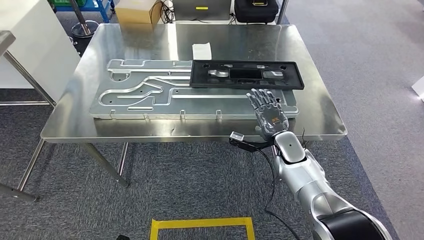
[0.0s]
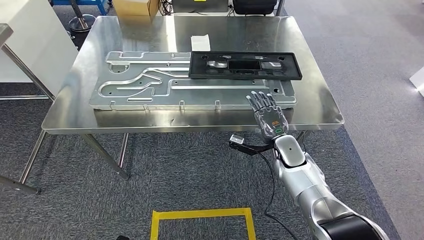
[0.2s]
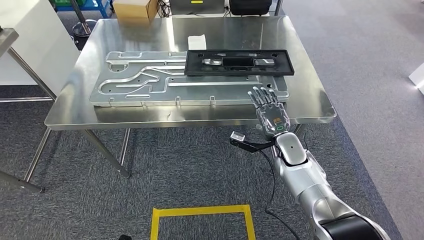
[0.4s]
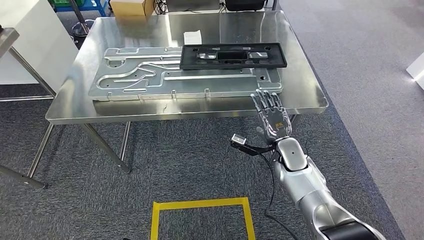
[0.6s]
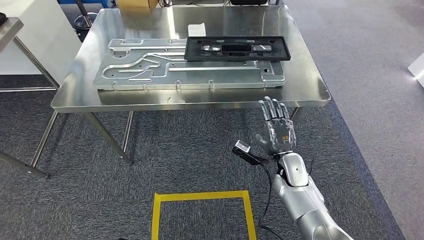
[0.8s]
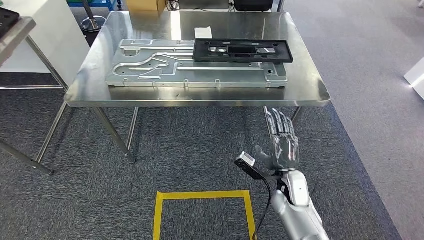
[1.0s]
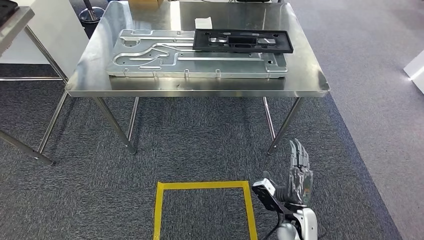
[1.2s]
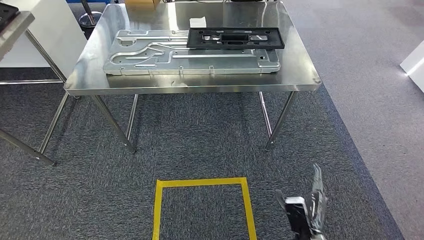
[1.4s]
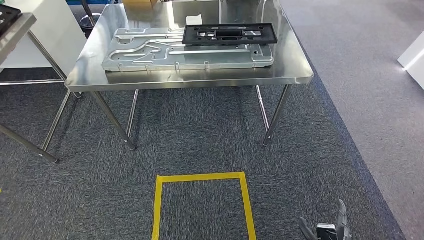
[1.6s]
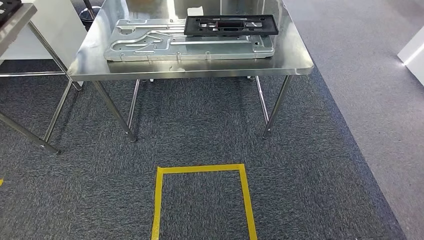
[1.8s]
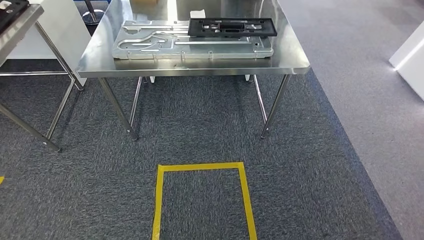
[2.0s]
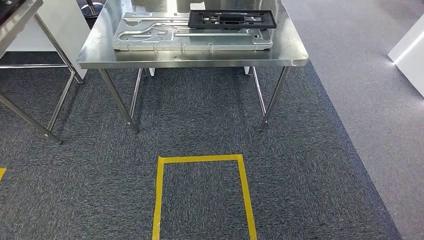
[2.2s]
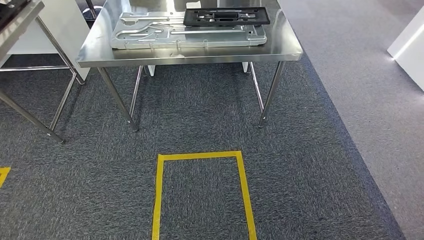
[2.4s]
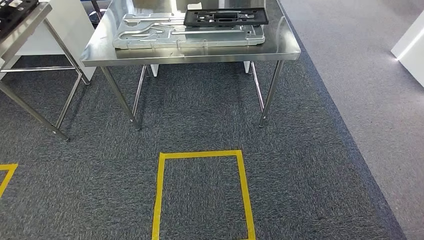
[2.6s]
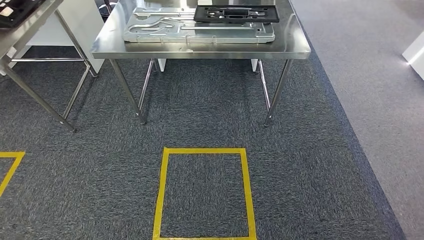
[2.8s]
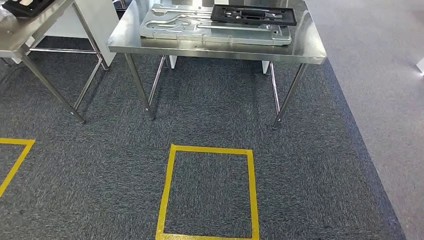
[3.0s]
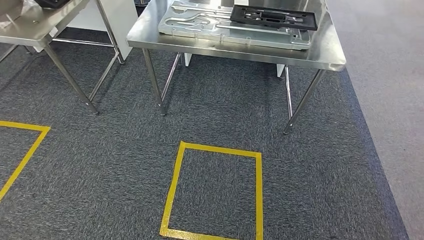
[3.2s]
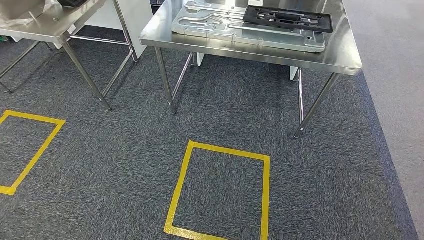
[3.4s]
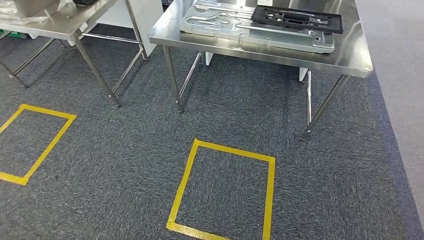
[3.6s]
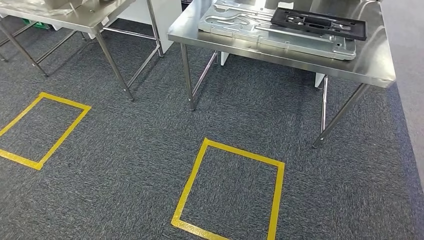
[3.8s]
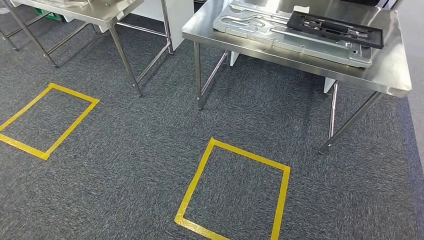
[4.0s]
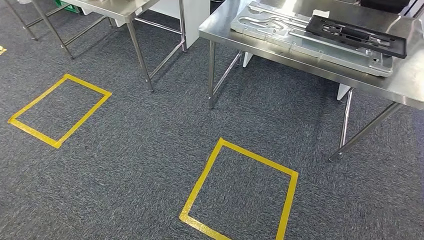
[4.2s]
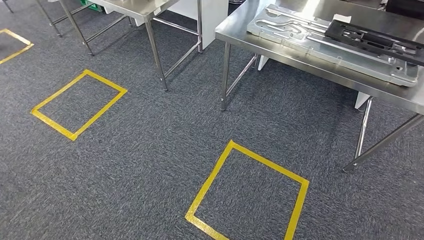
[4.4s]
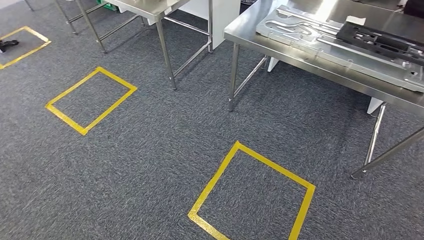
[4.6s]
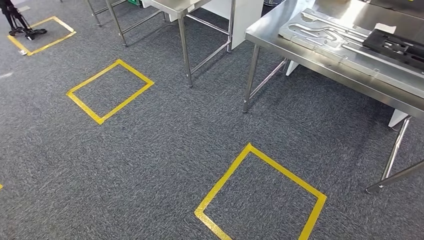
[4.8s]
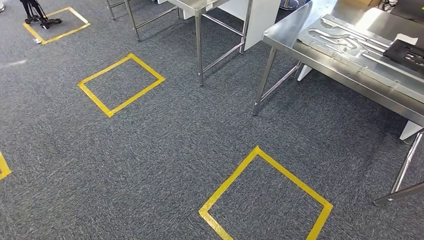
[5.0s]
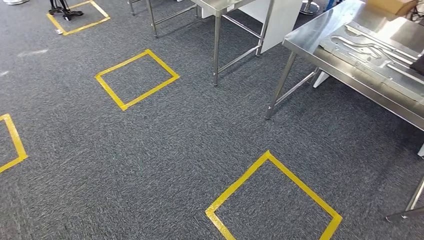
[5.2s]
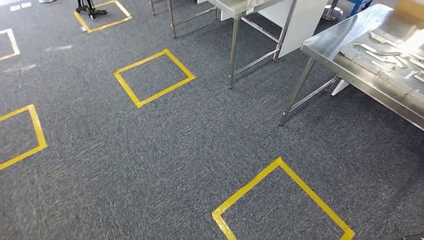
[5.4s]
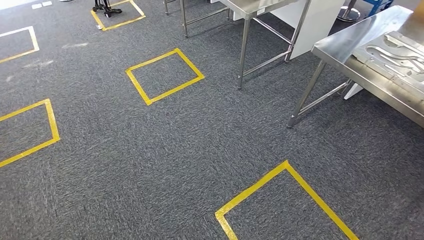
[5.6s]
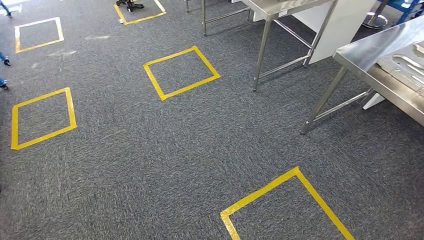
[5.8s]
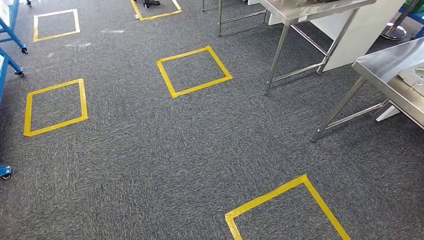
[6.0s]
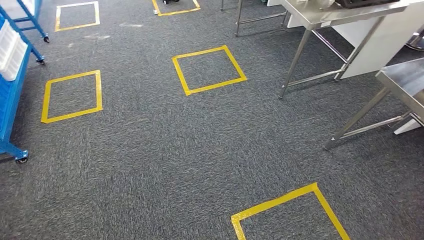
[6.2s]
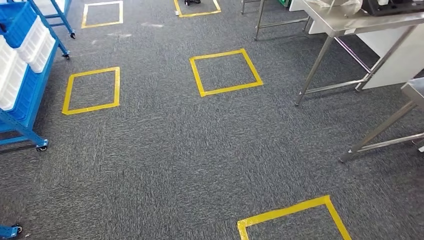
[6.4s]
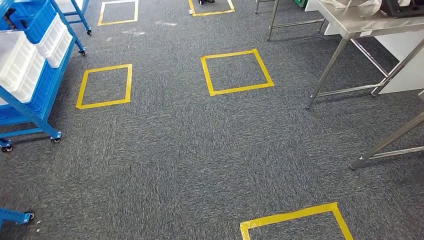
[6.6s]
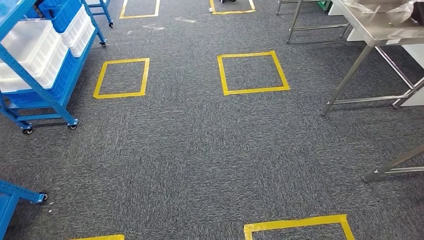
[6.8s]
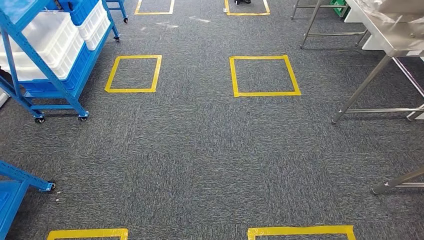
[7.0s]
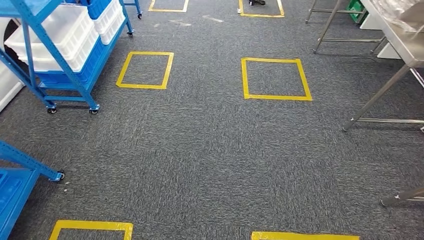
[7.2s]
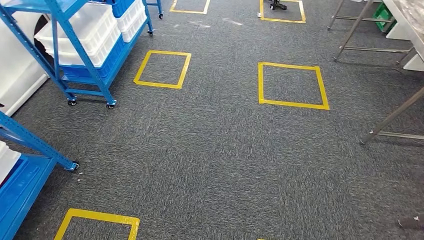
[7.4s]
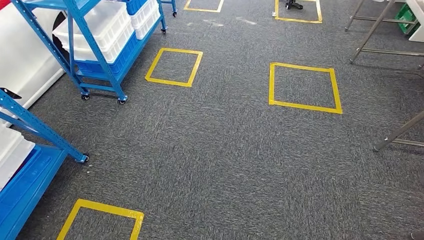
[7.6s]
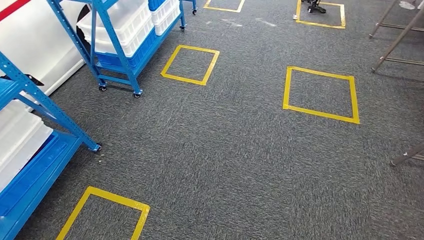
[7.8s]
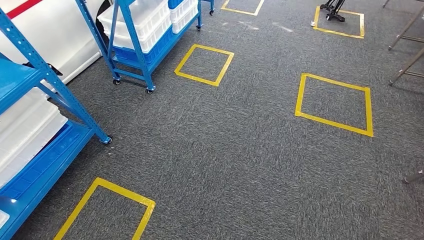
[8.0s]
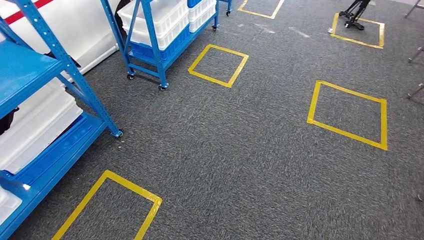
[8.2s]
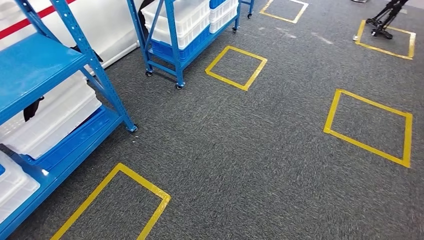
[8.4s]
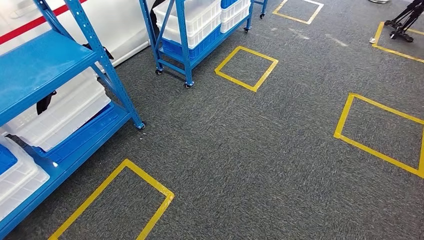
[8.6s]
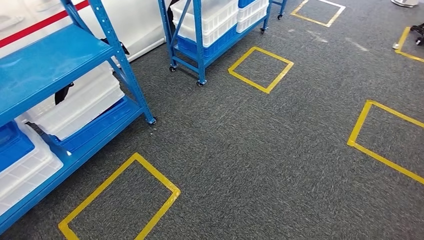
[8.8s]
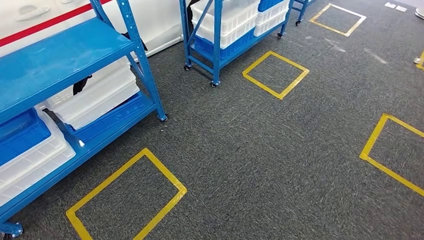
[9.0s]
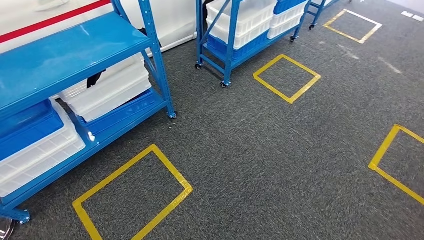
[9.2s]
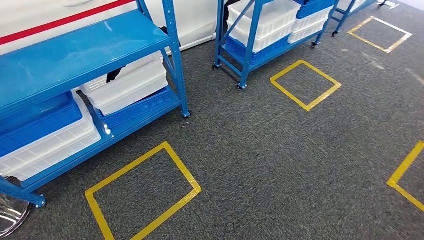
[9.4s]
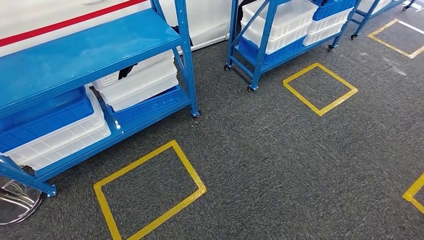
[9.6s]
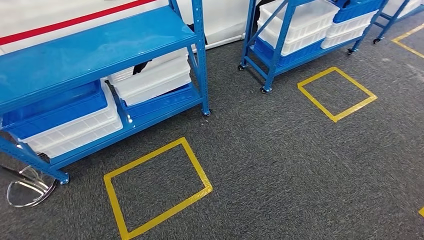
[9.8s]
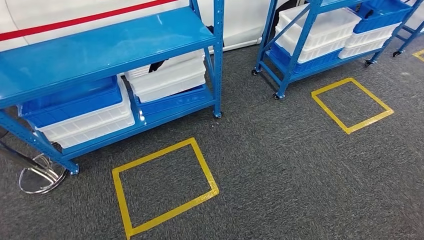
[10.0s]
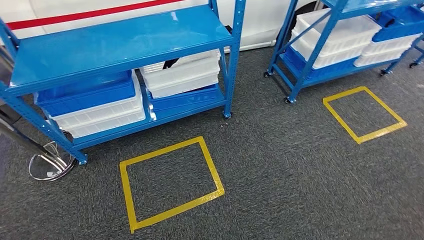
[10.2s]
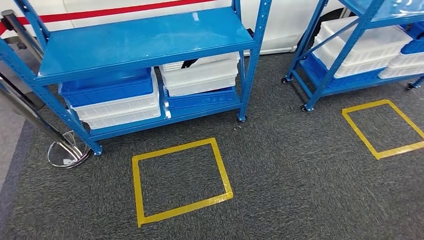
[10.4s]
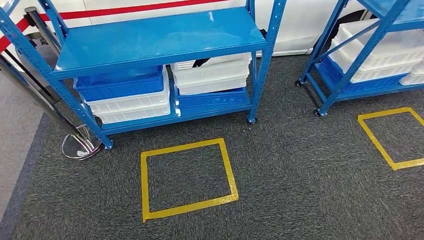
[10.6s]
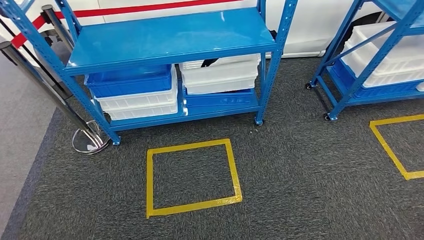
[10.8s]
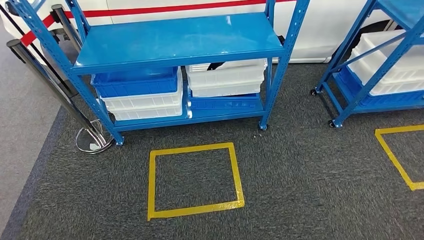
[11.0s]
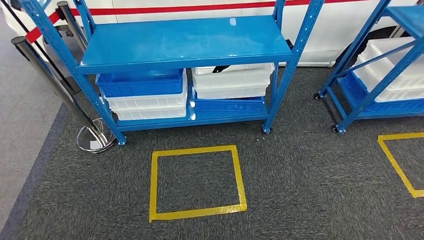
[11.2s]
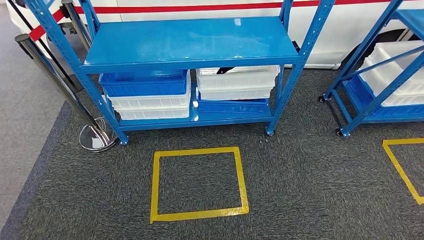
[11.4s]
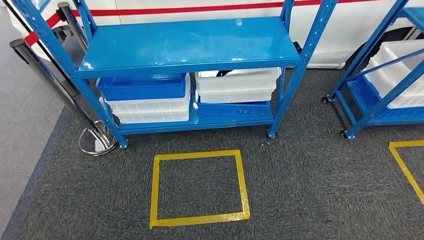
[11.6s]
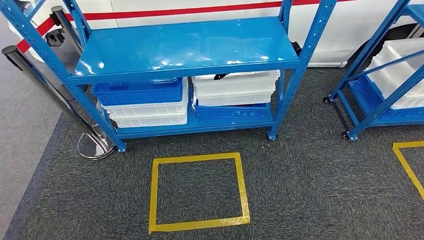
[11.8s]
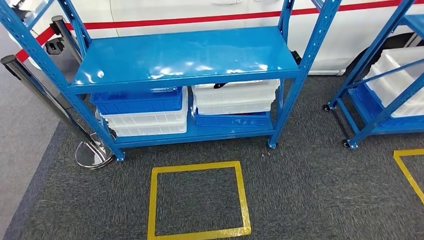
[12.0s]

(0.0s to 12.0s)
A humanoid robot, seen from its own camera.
Step, 0.0s - 2.4s: Insert the large material into the corresponding slot on the workbench.

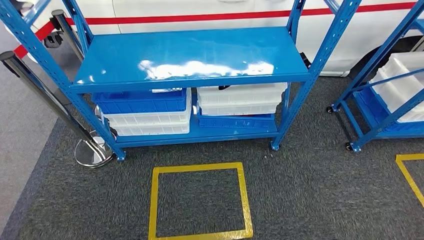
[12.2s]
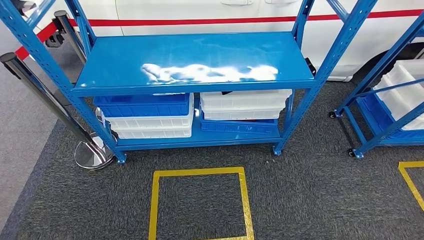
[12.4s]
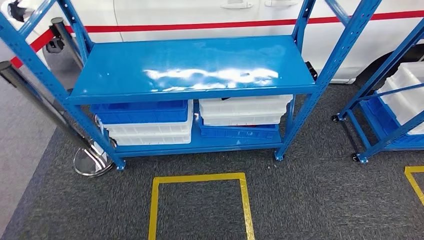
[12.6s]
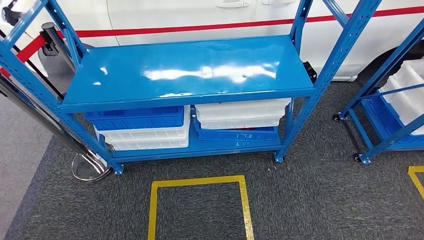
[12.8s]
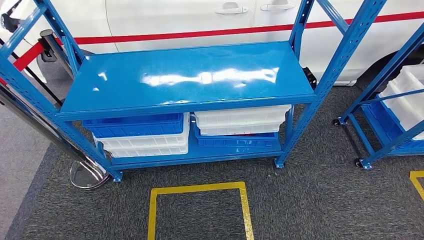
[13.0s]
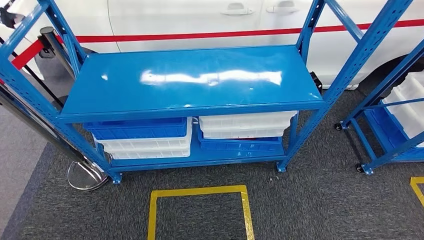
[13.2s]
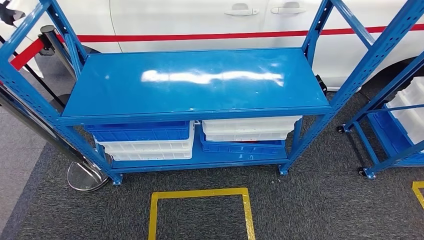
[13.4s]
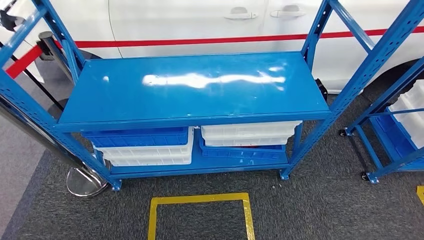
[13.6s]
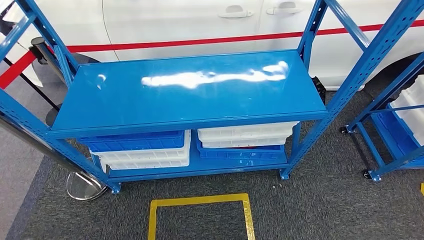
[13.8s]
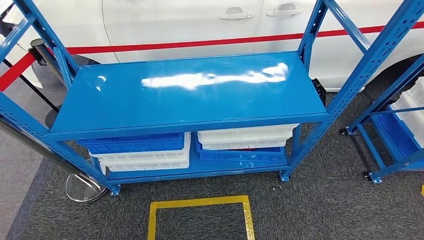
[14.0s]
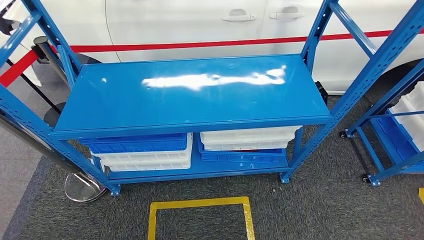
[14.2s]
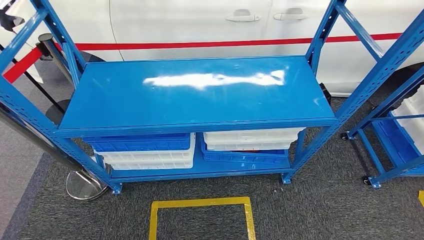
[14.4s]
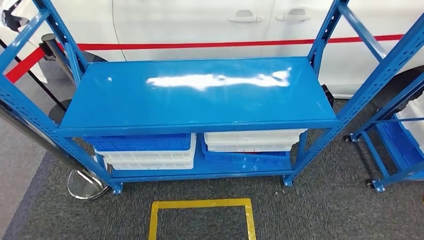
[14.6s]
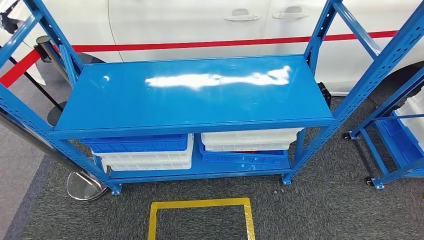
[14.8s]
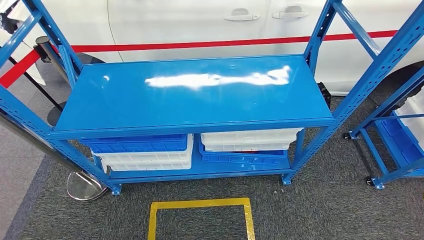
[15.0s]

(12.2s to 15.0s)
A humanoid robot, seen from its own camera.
Step, 12.2s - 15.0s: Move to the initial position of the shelf.

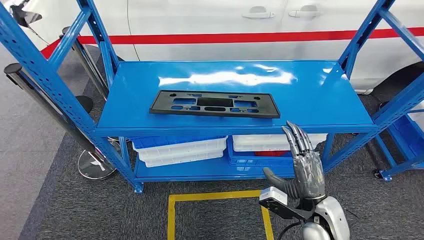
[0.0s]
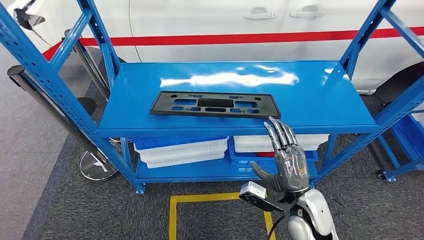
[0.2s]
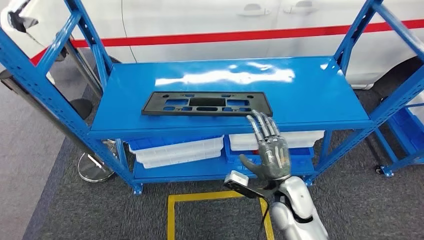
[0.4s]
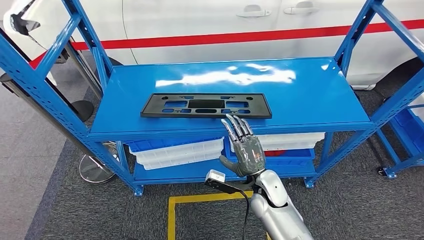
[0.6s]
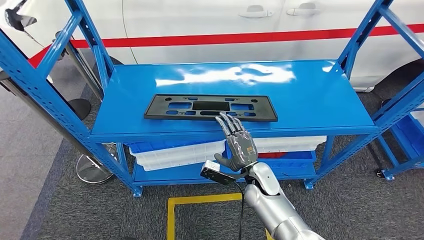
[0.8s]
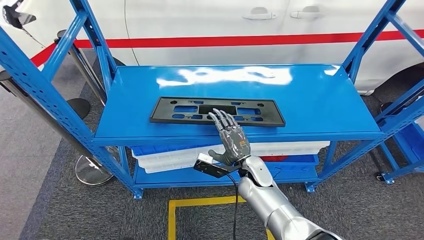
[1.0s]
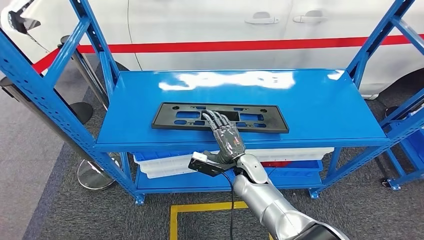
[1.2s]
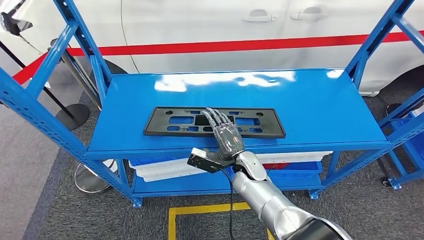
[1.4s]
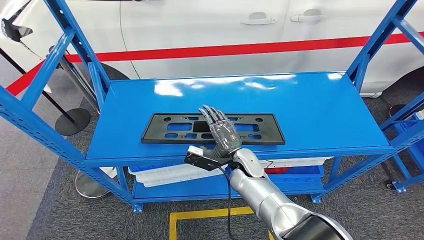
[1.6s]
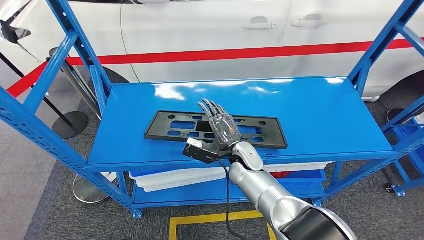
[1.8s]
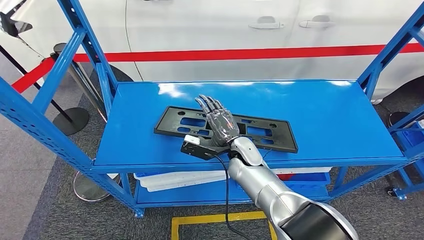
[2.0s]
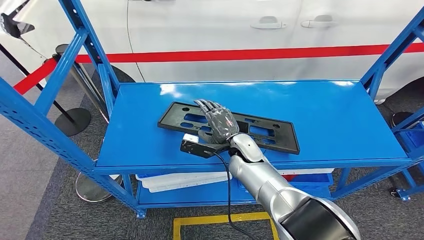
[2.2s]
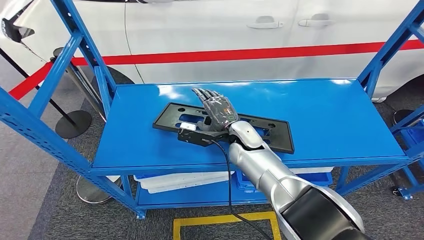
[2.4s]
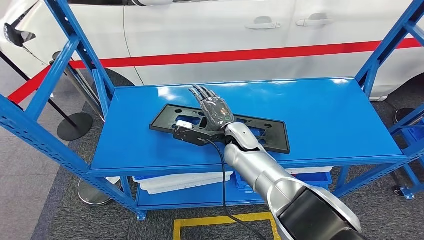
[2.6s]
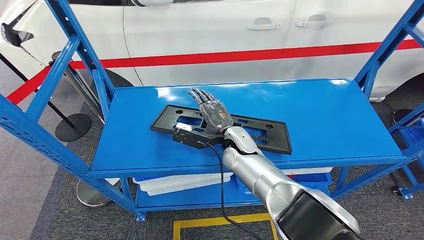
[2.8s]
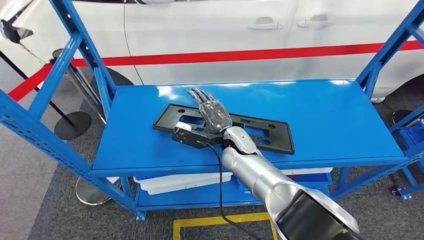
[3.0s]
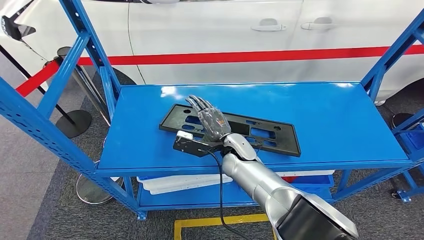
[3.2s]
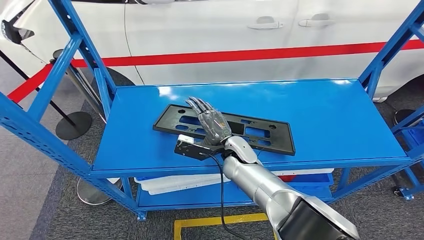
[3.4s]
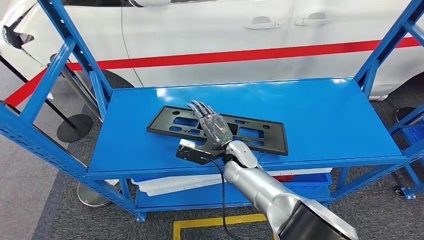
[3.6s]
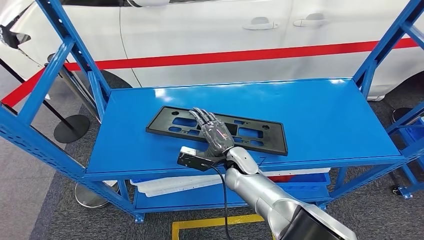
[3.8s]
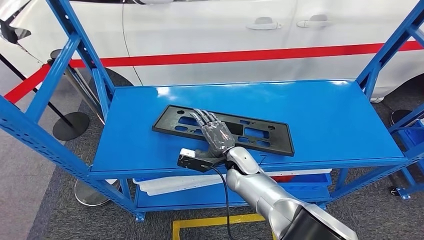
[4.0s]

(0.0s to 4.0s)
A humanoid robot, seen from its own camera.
2.6s - 4.0s: The right hand travels downward by about 5 cm.
